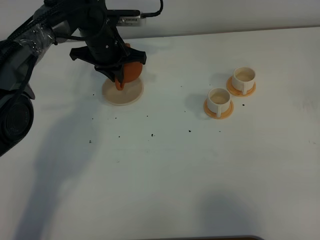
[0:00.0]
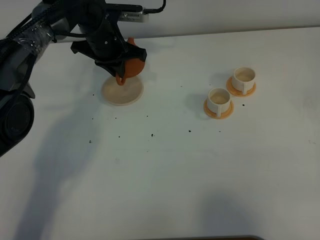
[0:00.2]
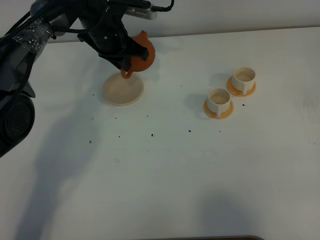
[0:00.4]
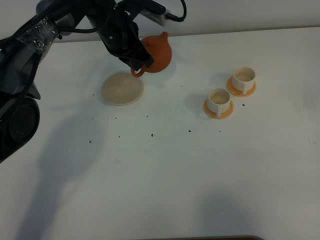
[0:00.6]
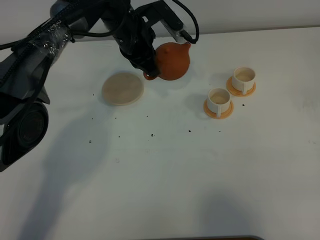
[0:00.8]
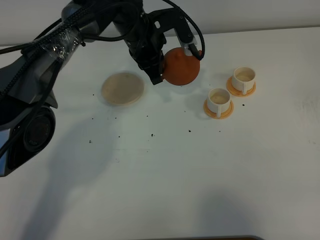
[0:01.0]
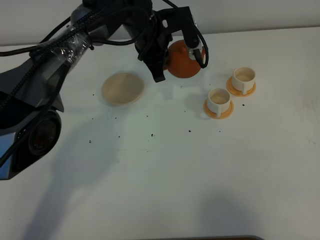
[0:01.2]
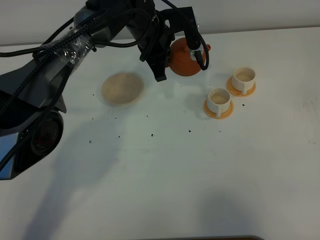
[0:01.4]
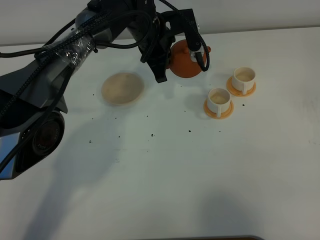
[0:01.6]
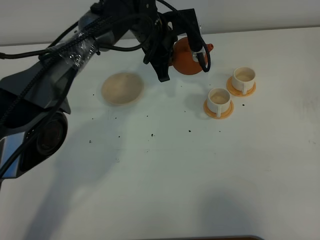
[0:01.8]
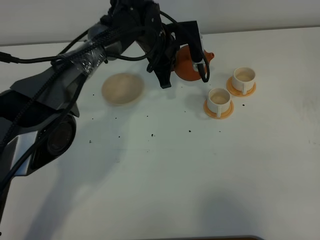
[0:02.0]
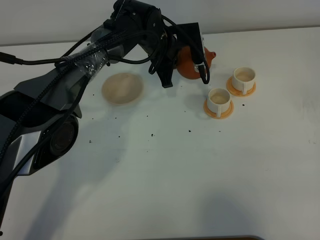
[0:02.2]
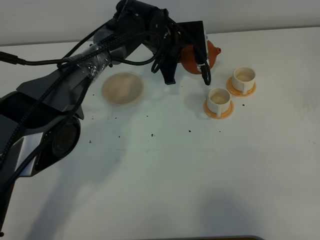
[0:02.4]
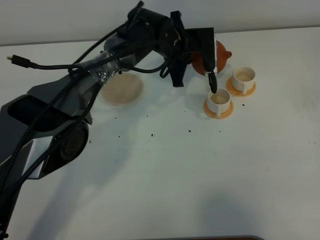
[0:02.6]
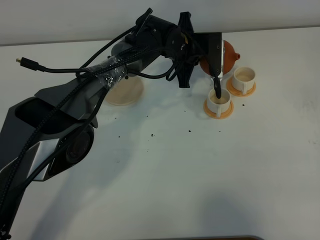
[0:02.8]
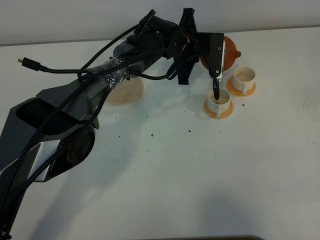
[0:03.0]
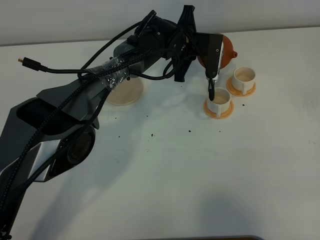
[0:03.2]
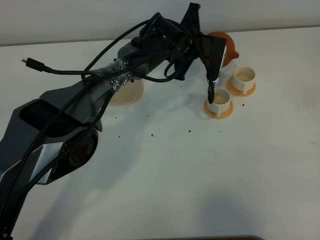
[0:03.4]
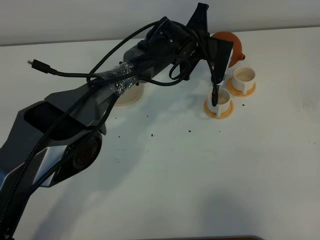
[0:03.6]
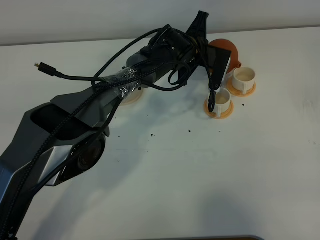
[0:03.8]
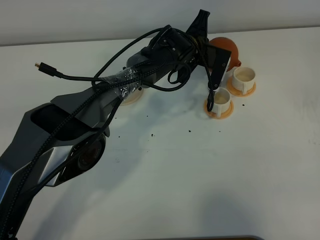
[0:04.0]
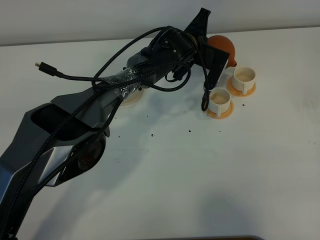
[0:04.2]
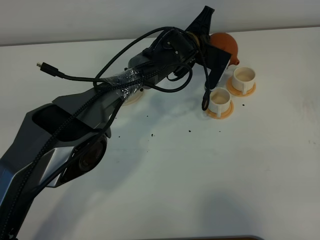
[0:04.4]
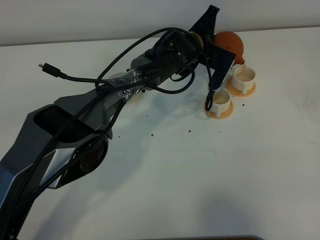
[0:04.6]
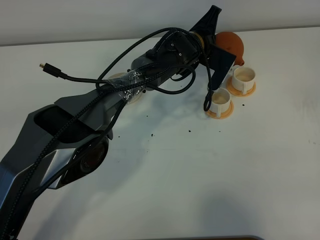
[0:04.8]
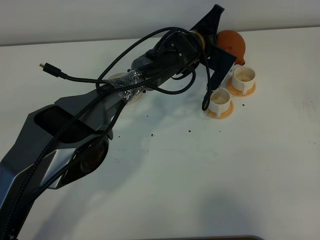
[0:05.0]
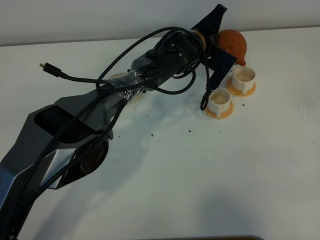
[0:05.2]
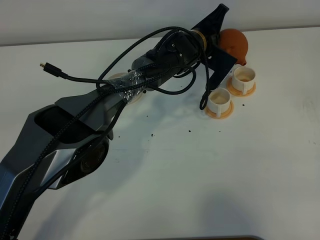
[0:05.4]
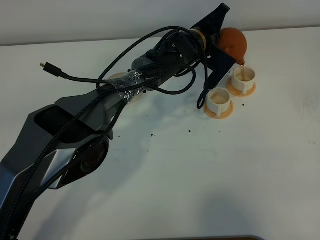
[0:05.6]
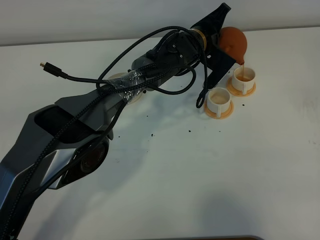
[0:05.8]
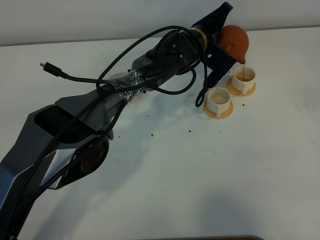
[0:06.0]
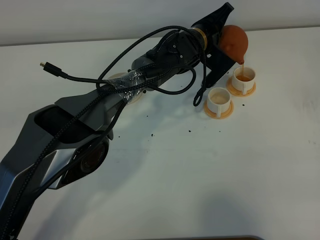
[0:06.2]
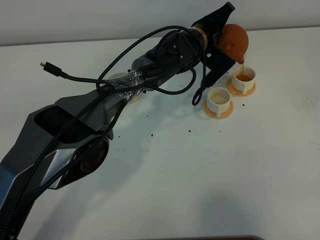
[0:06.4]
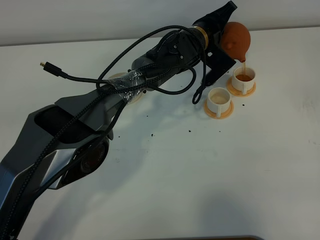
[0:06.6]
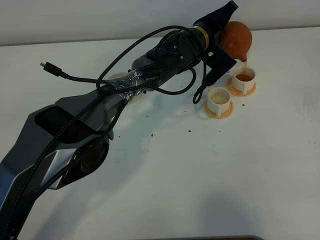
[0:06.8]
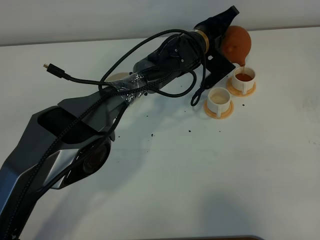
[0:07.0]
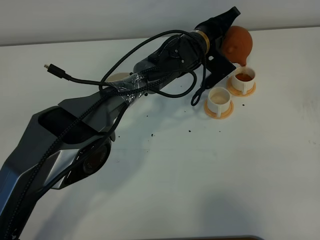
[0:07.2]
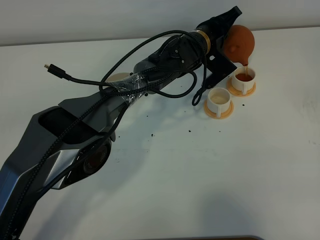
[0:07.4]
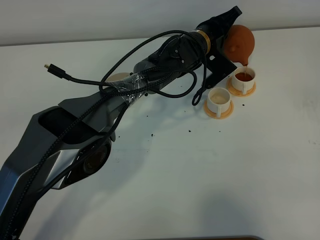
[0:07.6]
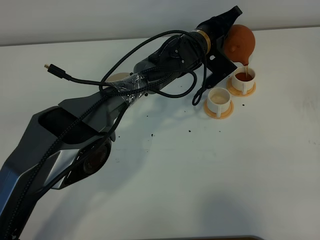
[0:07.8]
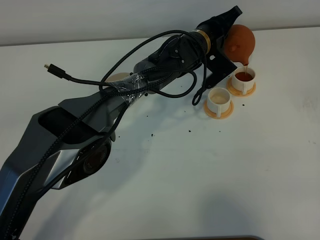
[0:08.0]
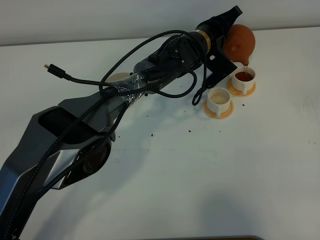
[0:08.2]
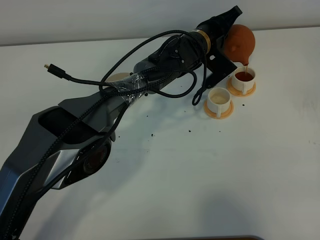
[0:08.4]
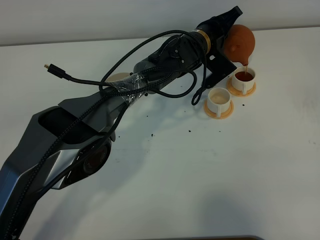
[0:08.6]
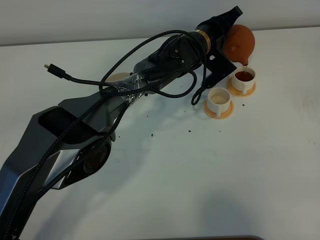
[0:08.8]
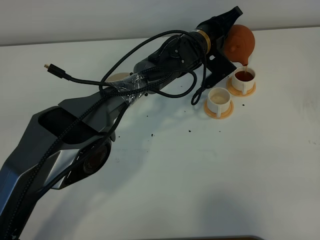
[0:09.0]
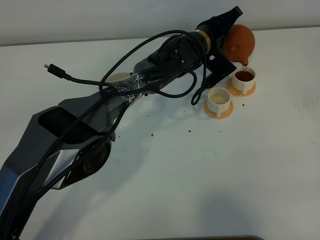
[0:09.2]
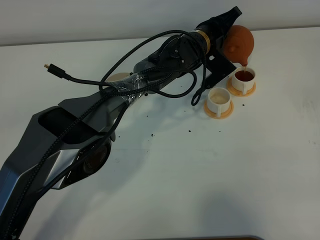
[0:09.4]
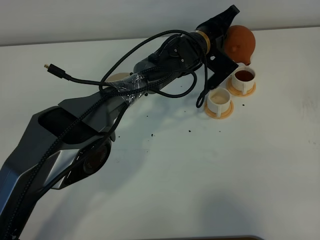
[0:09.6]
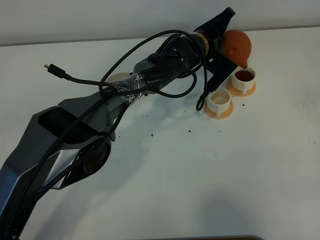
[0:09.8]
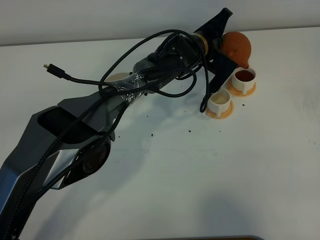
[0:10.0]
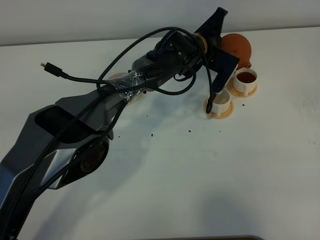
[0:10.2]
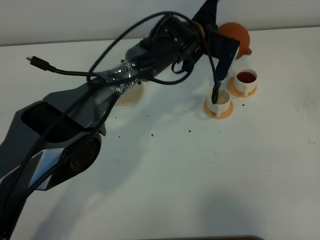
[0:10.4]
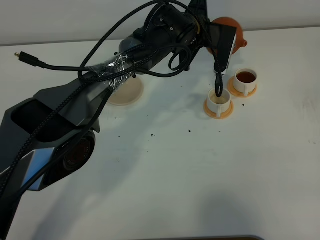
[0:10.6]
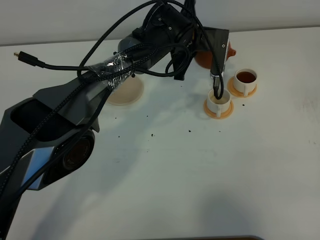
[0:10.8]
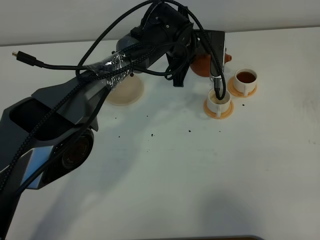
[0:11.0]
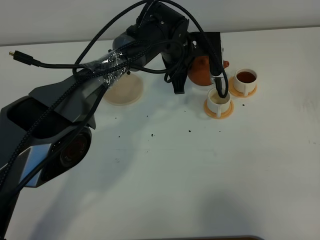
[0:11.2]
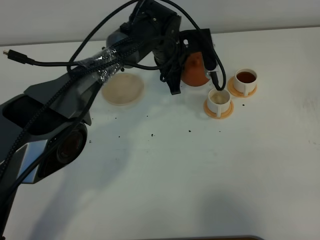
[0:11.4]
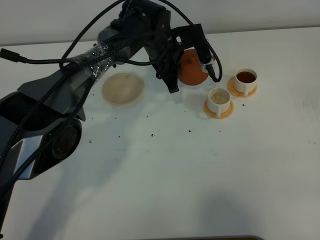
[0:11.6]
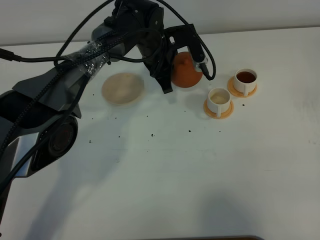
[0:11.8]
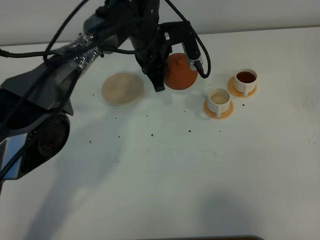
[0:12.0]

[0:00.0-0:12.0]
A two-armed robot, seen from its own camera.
Task of the whole recording: grasp the brown teapot and pour the tea into the two white teacups one by one, put the brown teapot back in its original place.
0:00.0 to 0:01.6: The left gripper heads to the right, covering roughly 10 cm.
0:01.6 to 0:03.0: The left gripper travels to the right and downward by about 10 cm.
0:04.4 to 0:06.0: The grippers move only a little.
0:06.0 to 0:07.6: The grippers make only small movements.
0:07.6 to 0:09.0: Both grippers stay about where they are.
0:10.4 to 0:12.0: The left gripper shifts some 10 cm to the left.

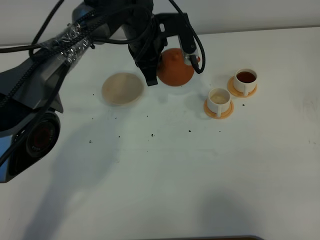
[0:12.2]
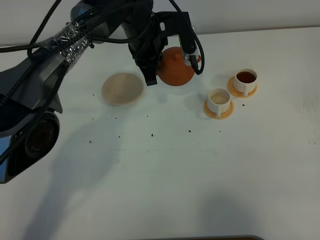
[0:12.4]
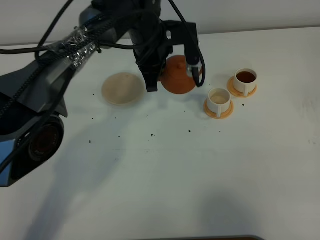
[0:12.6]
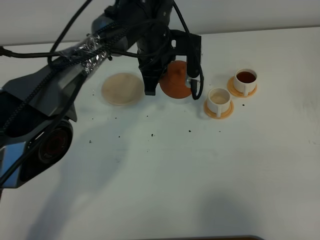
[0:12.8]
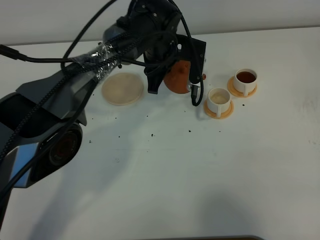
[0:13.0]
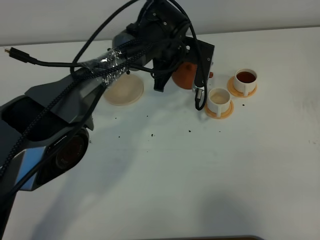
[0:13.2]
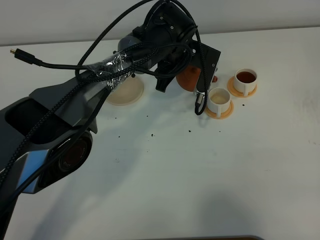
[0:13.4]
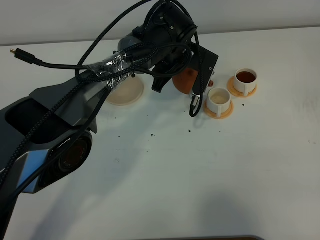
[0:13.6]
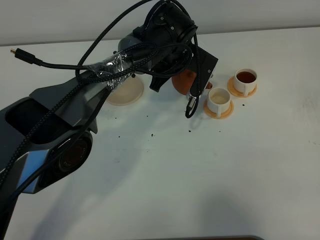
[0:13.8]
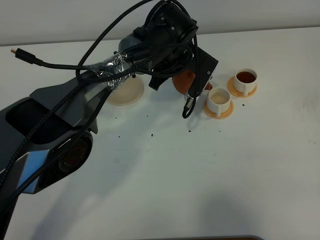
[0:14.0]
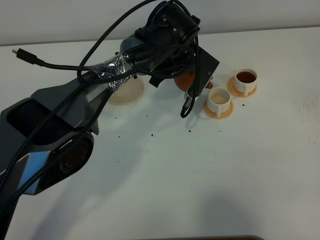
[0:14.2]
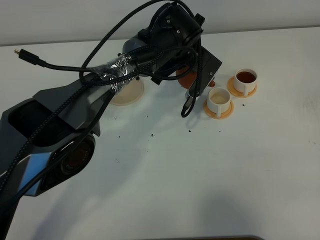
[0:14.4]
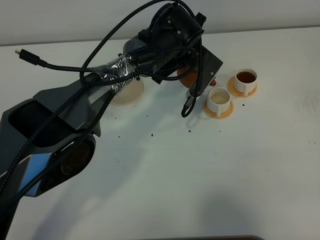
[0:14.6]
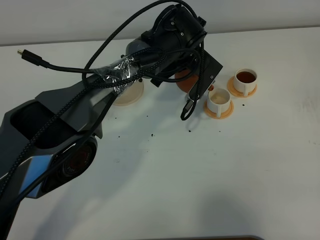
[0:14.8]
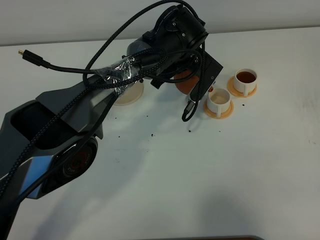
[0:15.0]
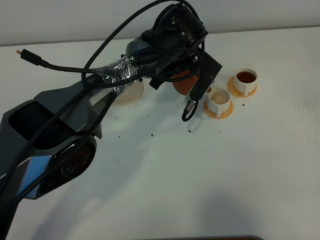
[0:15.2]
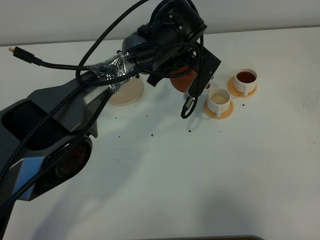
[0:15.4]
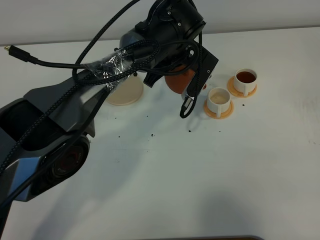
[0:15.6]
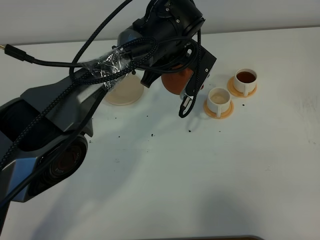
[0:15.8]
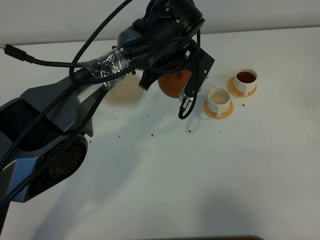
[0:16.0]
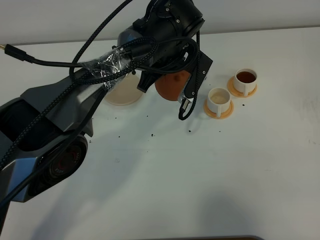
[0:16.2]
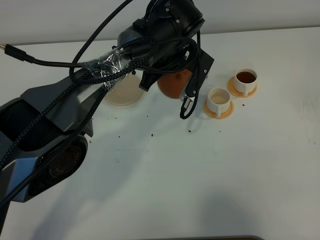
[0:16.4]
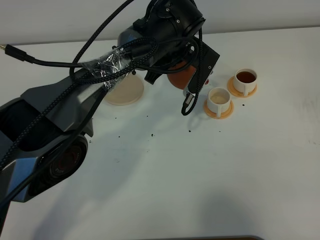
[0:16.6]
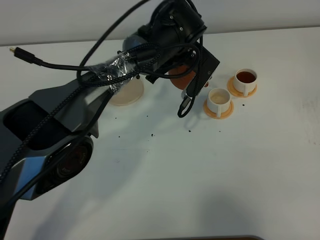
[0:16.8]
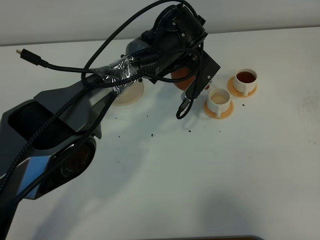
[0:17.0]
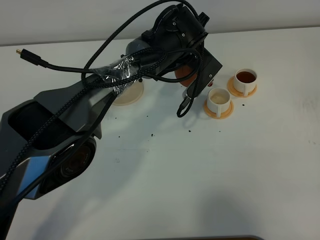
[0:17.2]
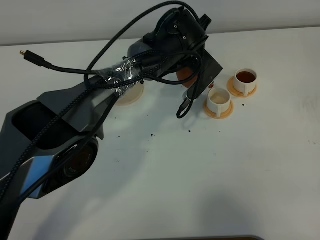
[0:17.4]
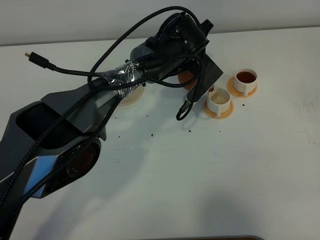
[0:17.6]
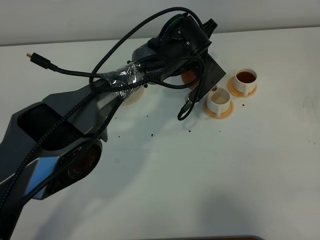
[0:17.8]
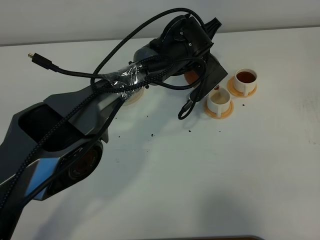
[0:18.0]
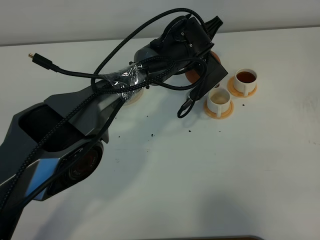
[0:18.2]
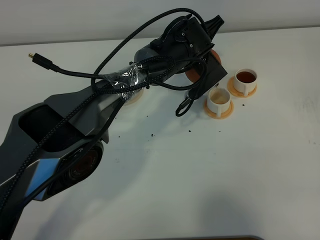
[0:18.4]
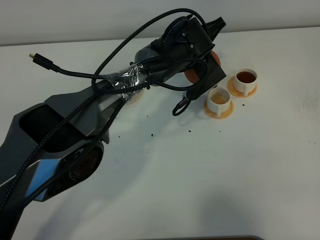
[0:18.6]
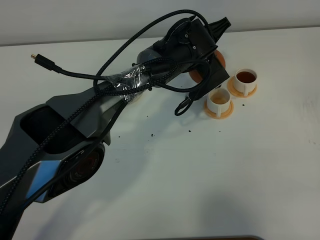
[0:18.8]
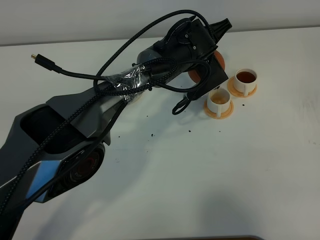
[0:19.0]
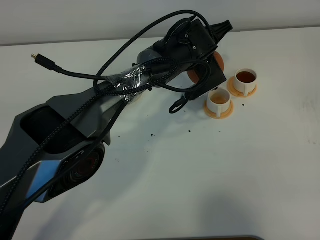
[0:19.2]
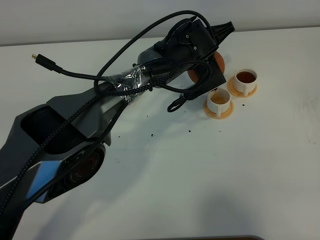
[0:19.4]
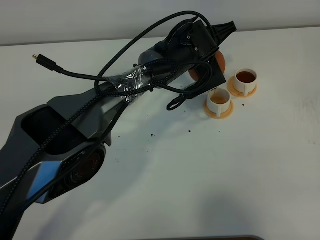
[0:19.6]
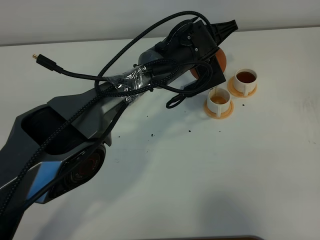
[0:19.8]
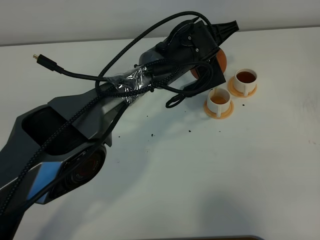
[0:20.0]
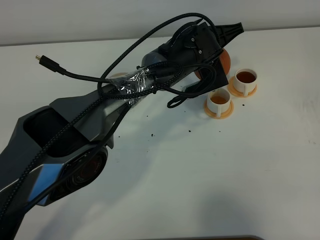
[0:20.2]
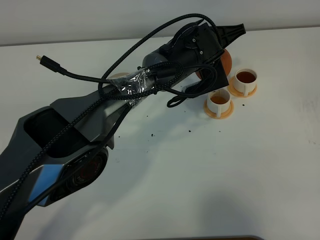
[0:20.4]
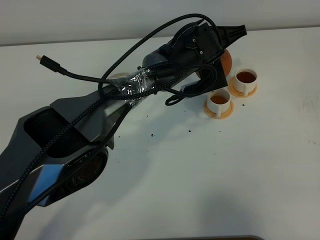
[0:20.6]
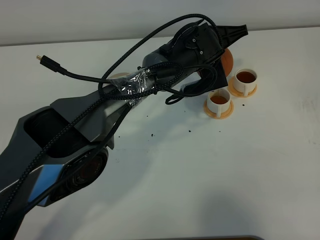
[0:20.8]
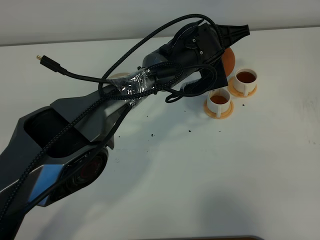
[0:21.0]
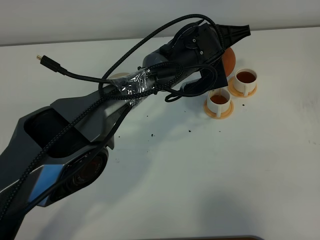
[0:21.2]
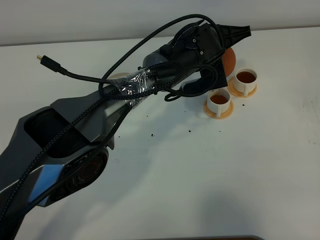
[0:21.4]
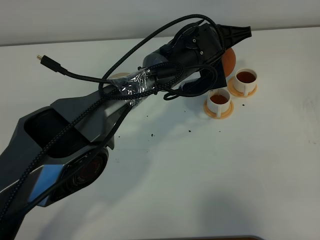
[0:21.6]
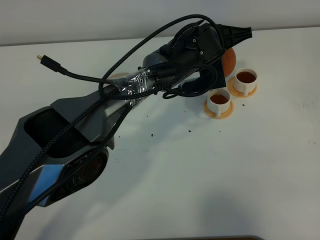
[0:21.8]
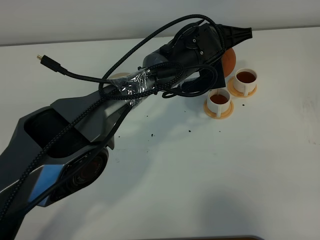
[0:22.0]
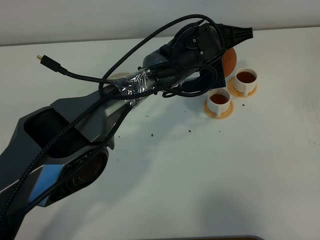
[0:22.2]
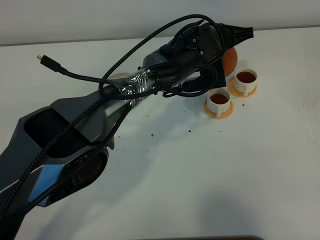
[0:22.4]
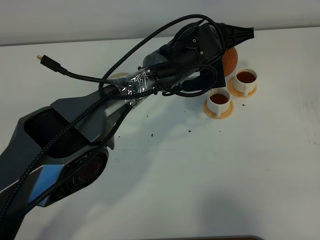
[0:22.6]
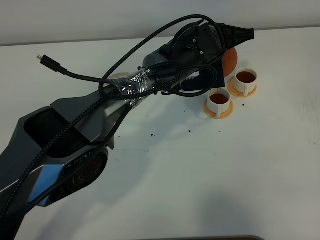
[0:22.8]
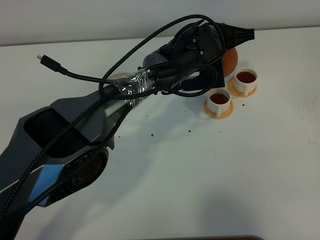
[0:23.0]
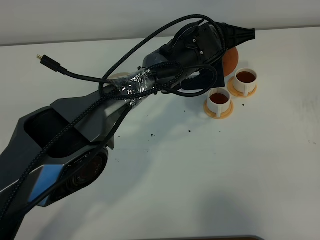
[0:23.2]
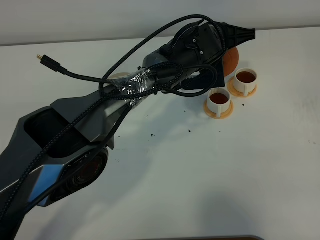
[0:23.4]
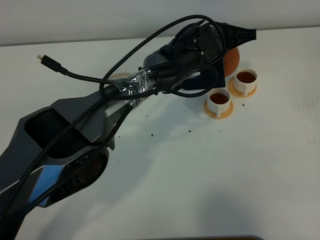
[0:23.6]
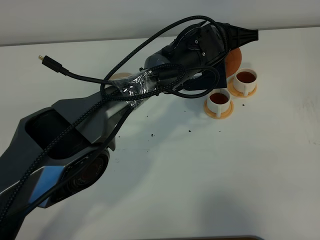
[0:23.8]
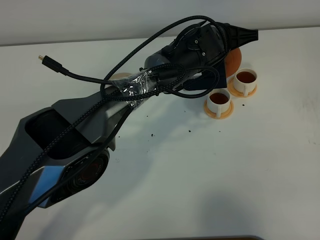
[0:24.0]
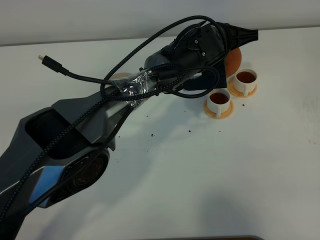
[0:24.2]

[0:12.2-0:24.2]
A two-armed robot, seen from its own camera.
Task of the whole recording: grasp the brown teapot and pour the tea into the two white teacups one by one, put the brown teapot back in its original place.
0:12.2 to 0:13.8: The left gripper moves to the right, roughly 5 cm.
0:13.8 to 0:16.6: The grippers move only a little.
0:18.2 to 0:19.8: The grippers make only small movements.
0:19.8 to 0:22.6: The grippers stay close to where they were, moving slightly.
0:22.6 to 0:24.2: The two grippers keep their place.
